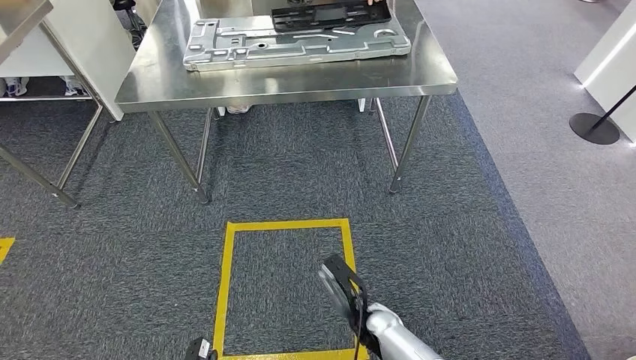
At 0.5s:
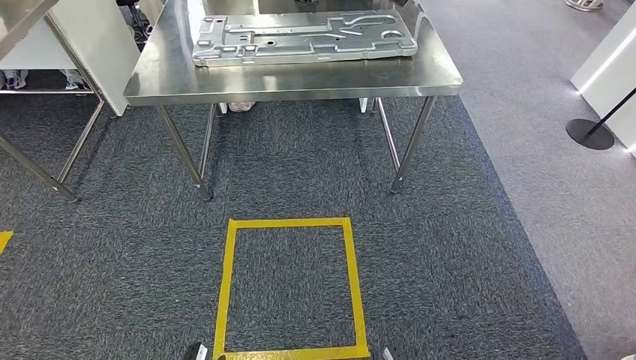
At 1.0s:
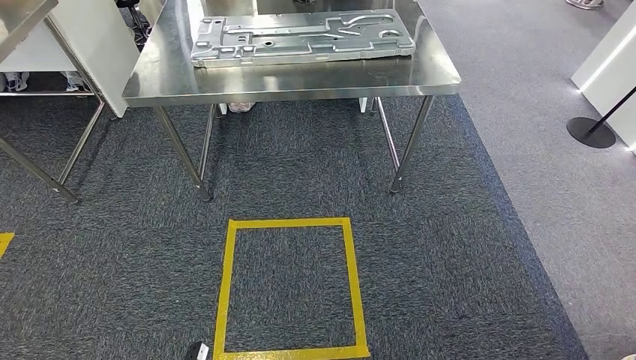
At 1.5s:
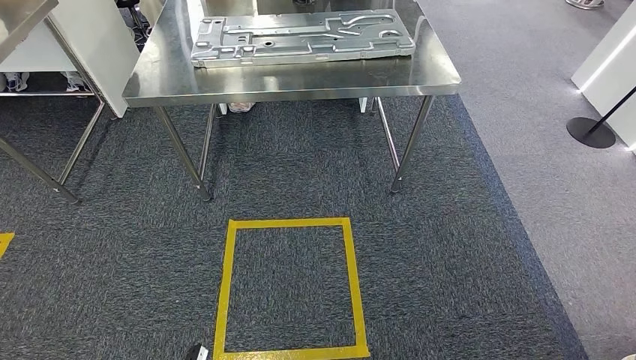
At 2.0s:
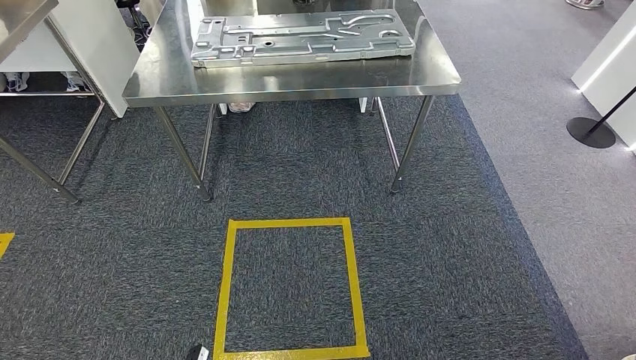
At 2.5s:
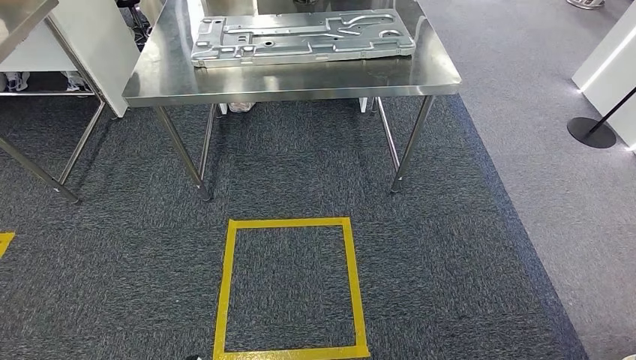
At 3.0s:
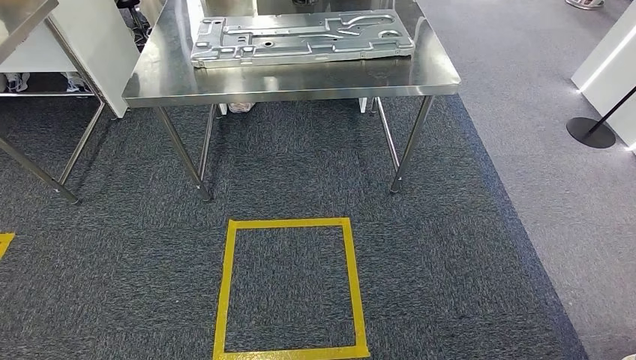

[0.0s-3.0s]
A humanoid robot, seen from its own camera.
Step, 0.0s to 3.0s: Return to the initial position at the workbench.
0.0s to 1.5s: The right hand is displaced backward and downward by approximately 25 cm.
